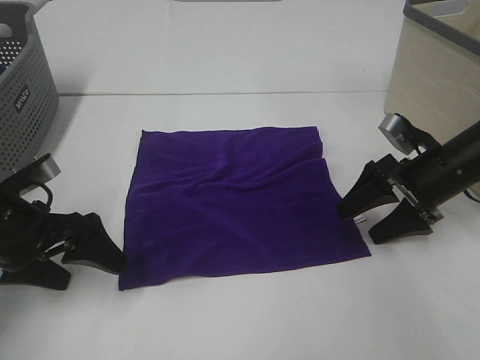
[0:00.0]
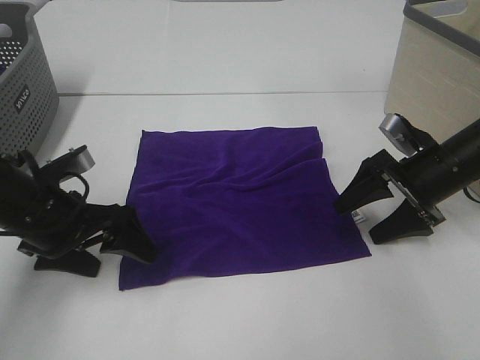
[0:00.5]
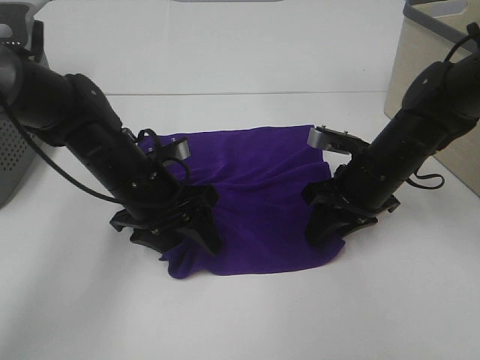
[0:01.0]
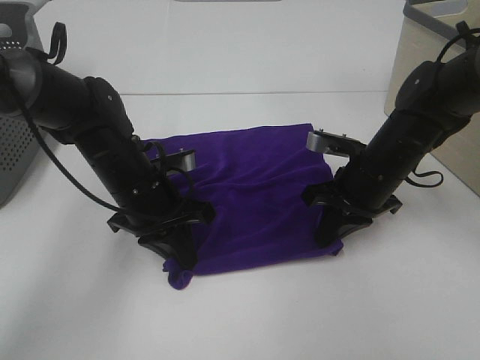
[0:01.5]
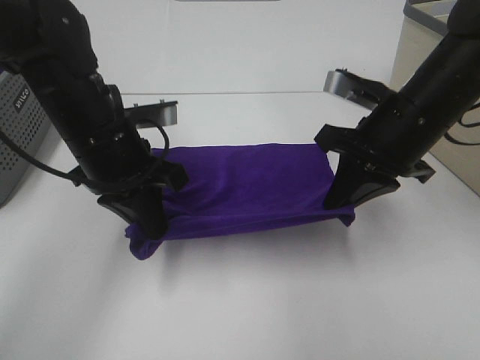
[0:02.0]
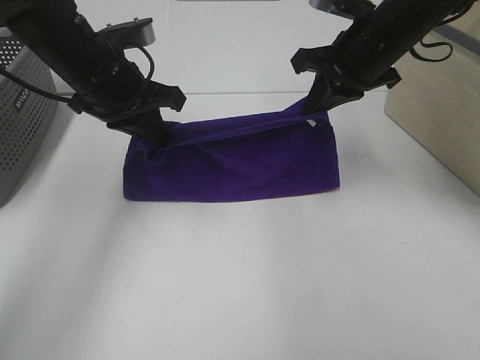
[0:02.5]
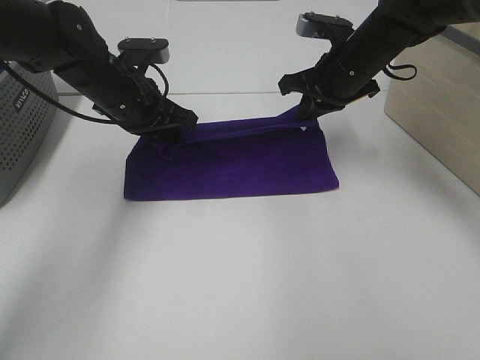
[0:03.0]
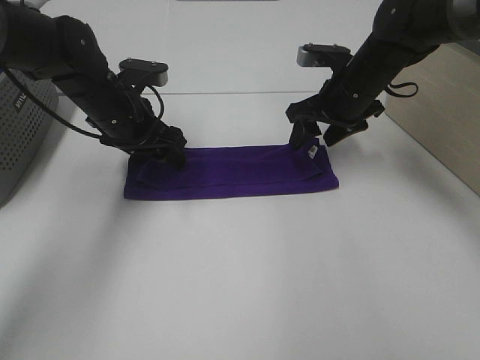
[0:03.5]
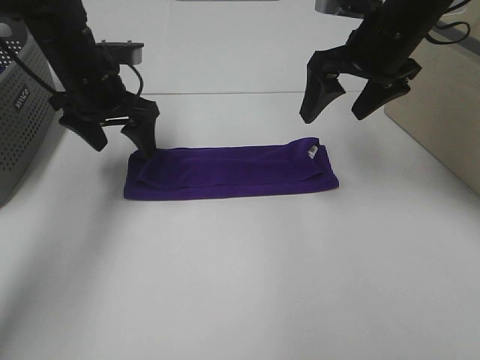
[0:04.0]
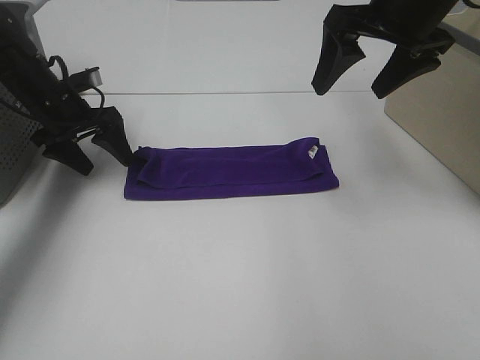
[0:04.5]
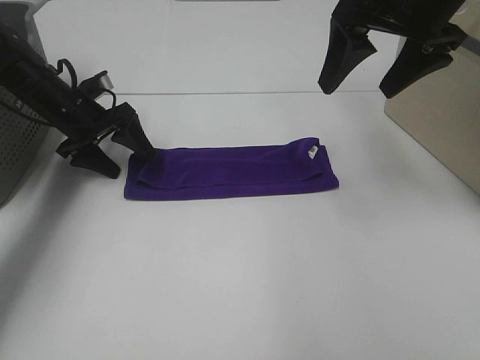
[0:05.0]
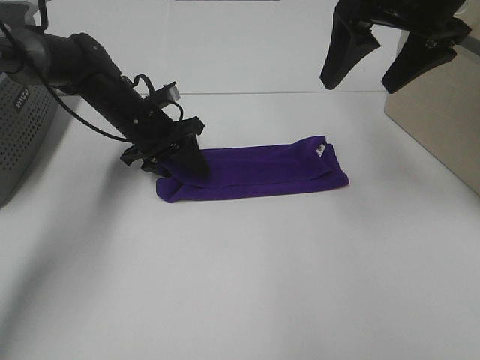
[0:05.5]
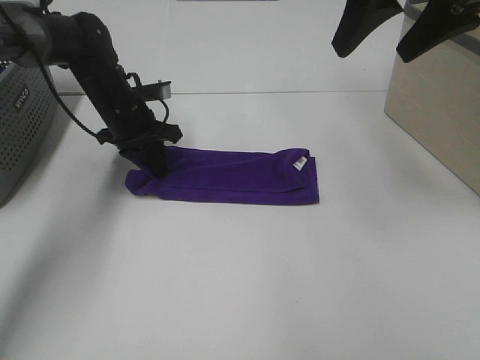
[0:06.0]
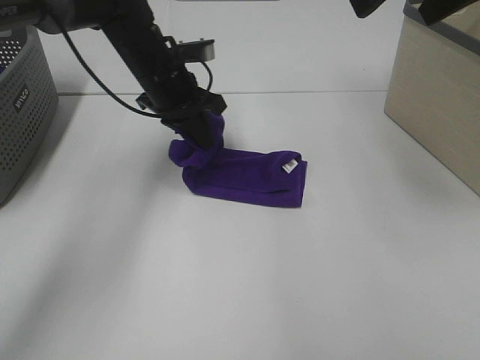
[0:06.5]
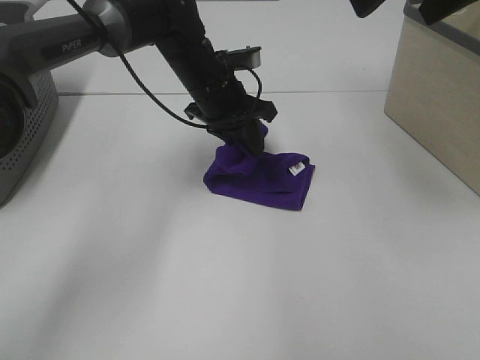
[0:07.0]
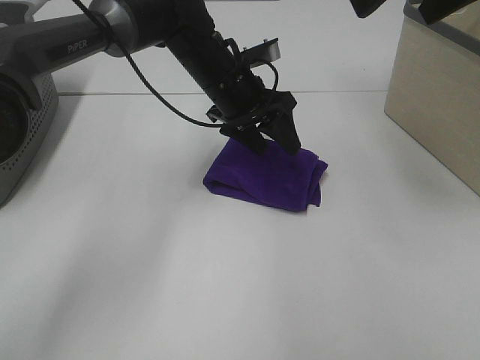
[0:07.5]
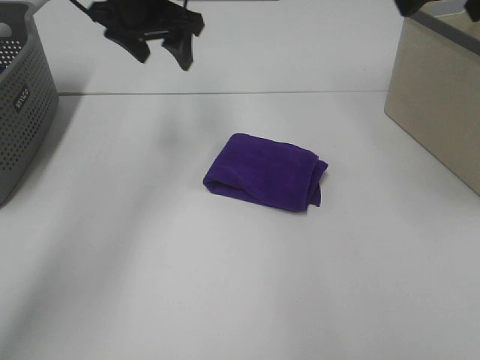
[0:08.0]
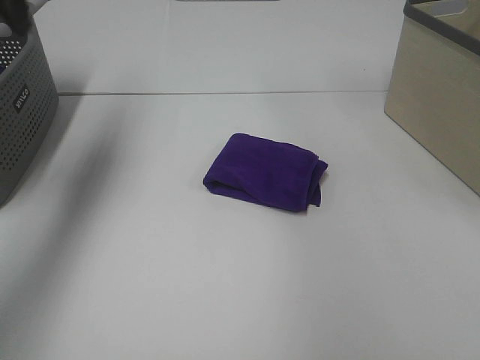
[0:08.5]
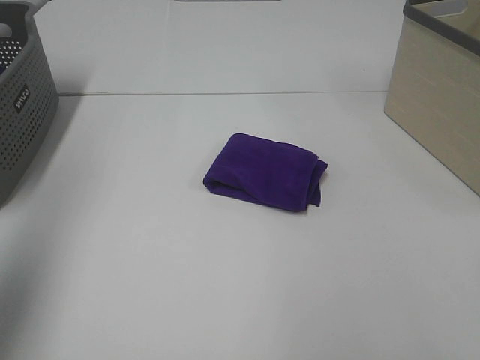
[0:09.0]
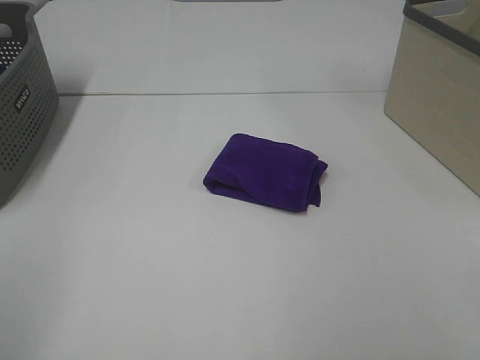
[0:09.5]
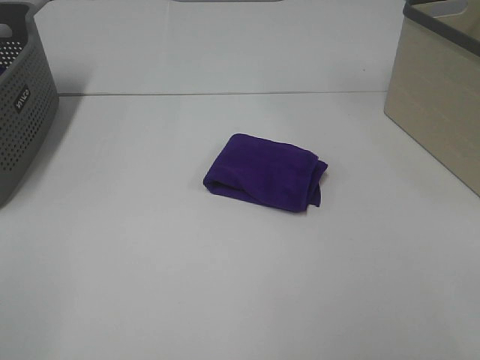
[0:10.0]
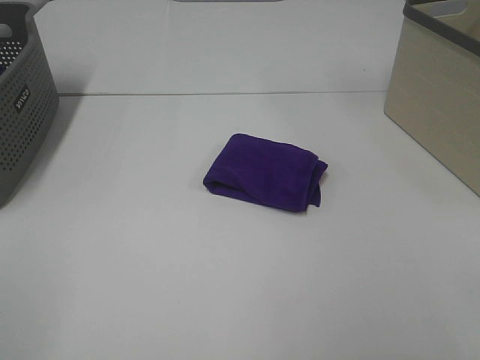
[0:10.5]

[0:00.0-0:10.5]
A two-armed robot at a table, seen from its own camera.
Task of the whole recording: Fold towels.
Step, 0:02.0 to 0:03.0: Left hand: fold the purple towel up.
Step, 0:02.0 to 0:03.0: Right hand: fold the purple towel up.
Step, 0:03.5 to 0:07.0: Left hand: fold the purple towel from left to right.
0:00.0 to 0:02.0: The left gripper moves to the right, upward and forward, roughly 15 cm, and closes, while the right gripper travels upward and to the left by about 15 cm, and closes.
0:02.0 to 0:04.0: The right gripper travels forward by roughly 10 cm, and opens up. Meanwhile the left gripper moves forward and to the left, approximately 15 cm, and opens its fingers.
0:04.0 to 0:06.5: The left gripper shifts some 10 cm to the right, and closes up, while the right gripper moves upward and backward, roughly 20 cm.
0:06.5 to 0:08.5: The right gripper travels to the right by approximately 10 cm. Meanwhile the left gripper shifts some 25 cm upward and to the left, and opens its fingers.
0:08.5 to 0:10.5: The left gripper heads backward, covering approximately 40 cm.
